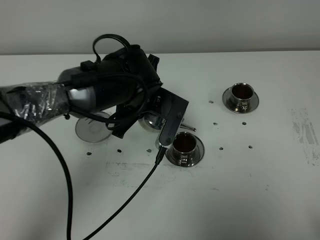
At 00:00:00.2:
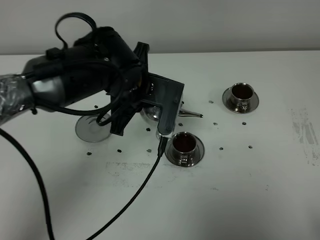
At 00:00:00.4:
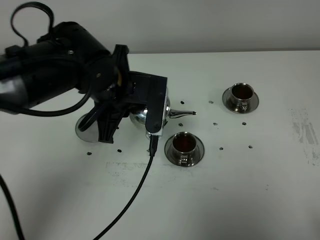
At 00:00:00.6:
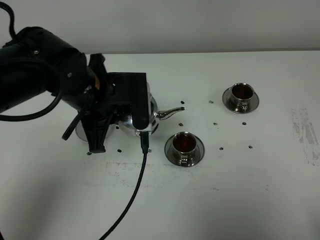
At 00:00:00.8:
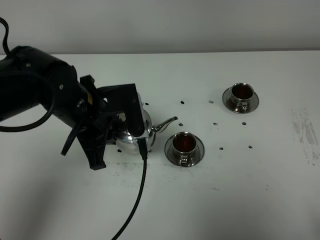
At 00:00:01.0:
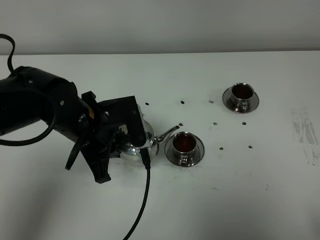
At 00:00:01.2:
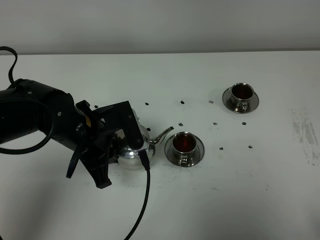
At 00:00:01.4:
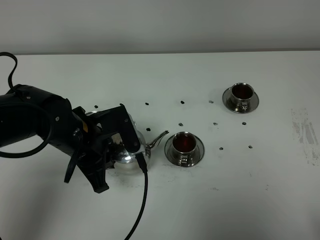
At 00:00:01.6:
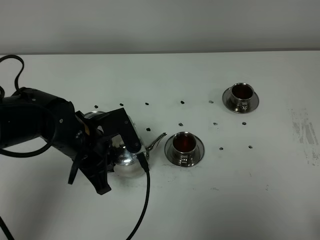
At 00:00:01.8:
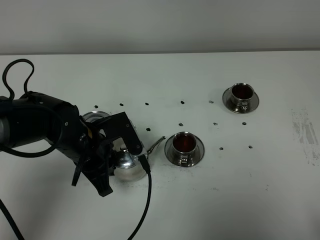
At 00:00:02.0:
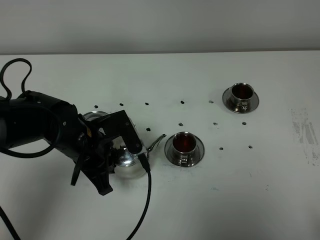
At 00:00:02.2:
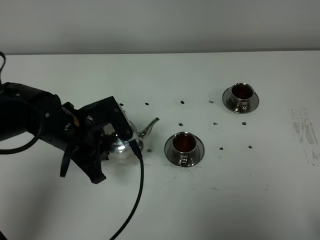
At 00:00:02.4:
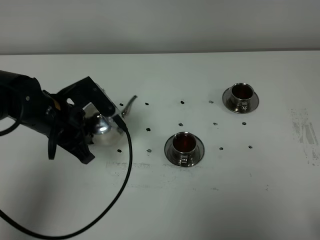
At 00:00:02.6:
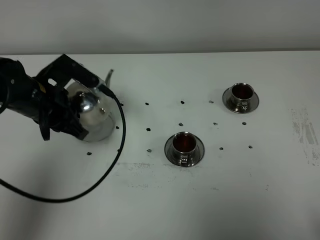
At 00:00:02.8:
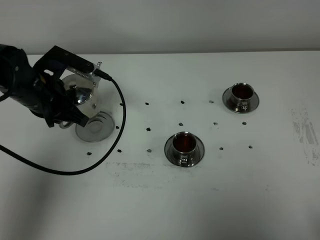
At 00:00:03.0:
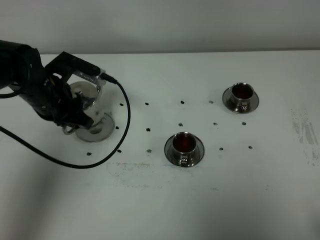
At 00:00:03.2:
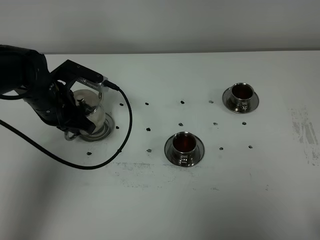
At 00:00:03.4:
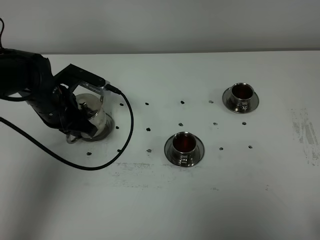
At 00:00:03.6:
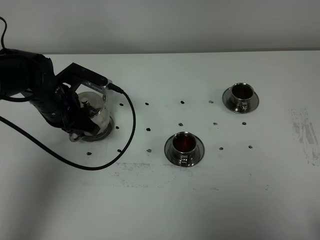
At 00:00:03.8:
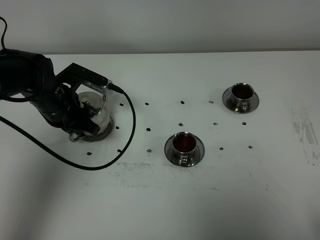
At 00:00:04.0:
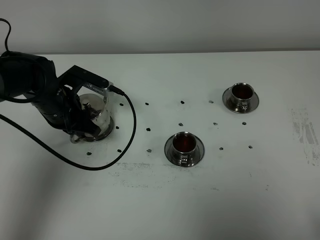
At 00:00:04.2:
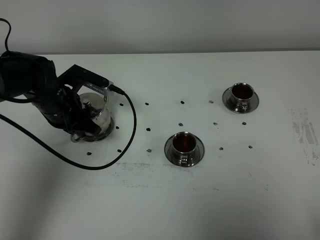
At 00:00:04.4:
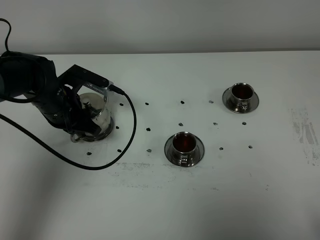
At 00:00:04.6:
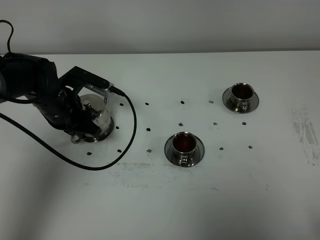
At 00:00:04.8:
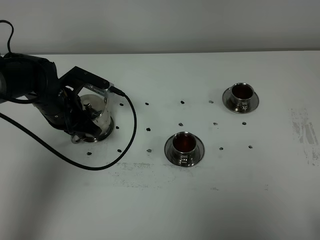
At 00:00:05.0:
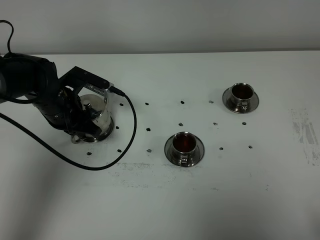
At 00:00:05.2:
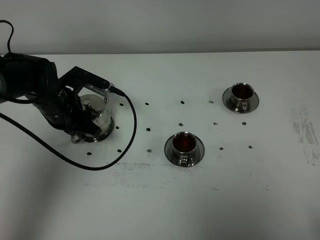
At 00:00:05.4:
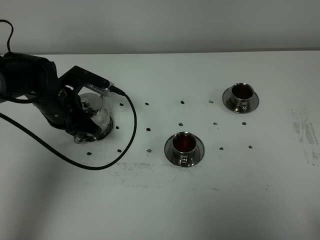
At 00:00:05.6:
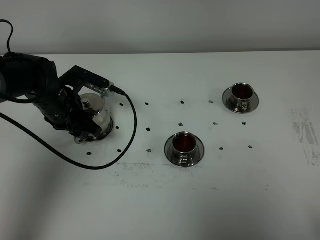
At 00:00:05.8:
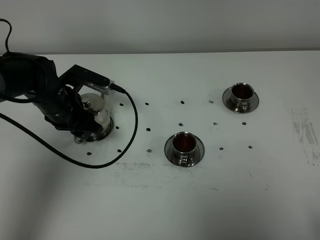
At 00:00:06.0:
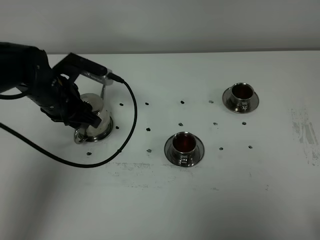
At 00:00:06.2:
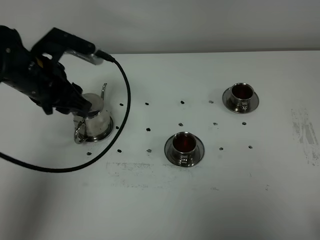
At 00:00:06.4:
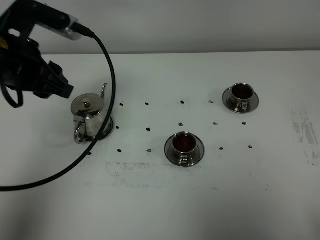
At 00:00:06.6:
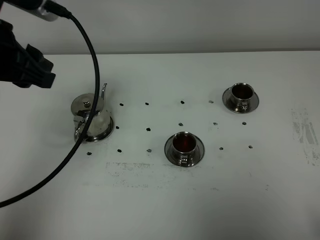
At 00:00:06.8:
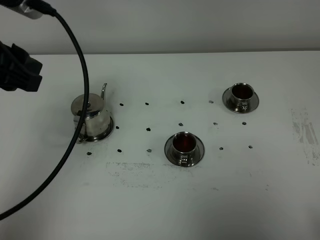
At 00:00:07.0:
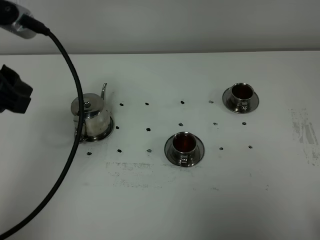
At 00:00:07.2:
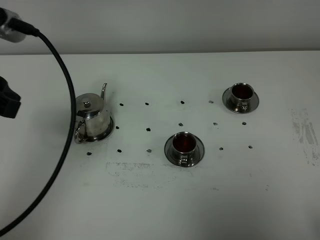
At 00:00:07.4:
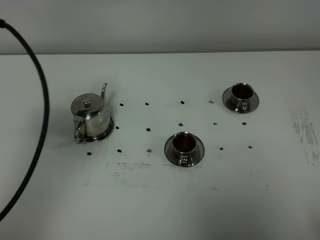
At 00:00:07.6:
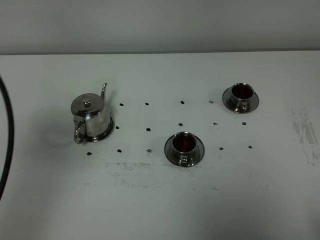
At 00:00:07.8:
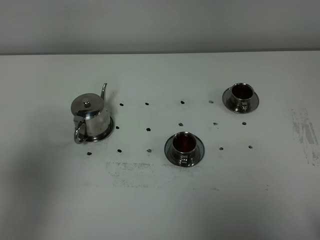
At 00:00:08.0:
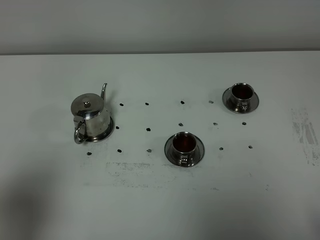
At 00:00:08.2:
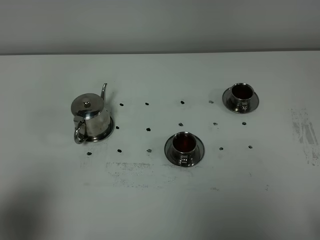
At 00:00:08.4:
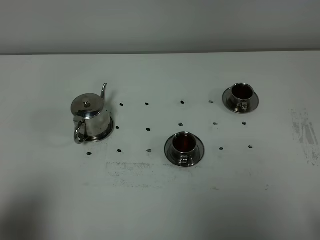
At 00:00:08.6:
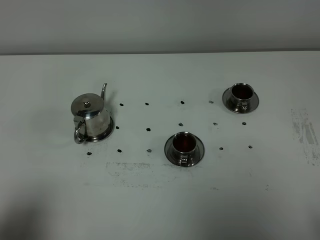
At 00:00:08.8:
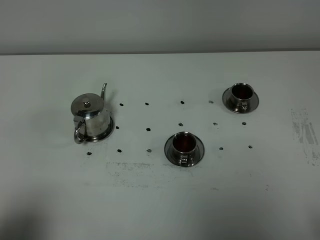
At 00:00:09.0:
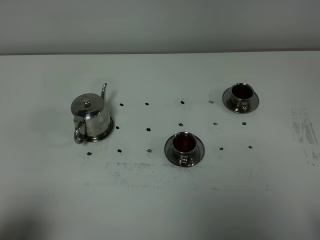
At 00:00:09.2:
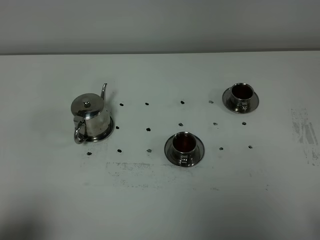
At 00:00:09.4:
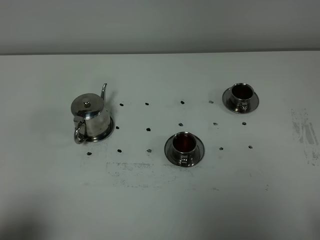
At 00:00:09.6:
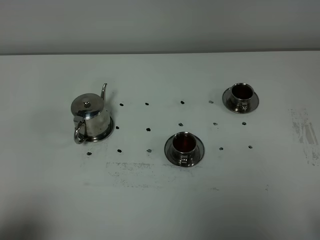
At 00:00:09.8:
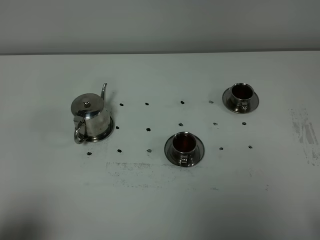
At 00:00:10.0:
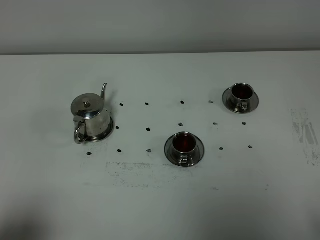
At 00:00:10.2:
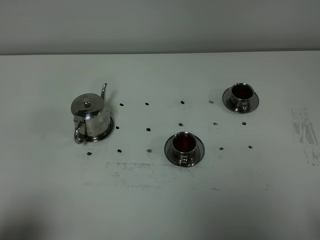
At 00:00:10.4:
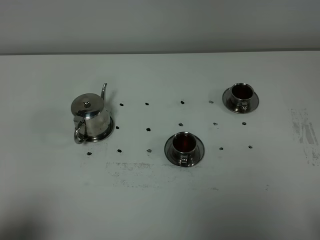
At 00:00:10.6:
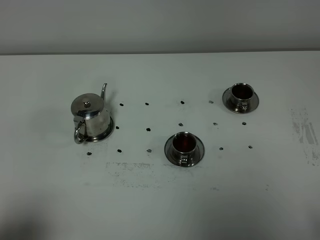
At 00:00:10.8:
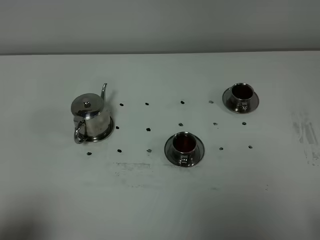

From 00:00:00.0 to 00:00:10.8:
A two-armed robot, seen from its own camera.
Task of the whole recording: grasp the stainless steel teapot and pour the tea into the two stainless steel teacups one by one, put the stainless steel teapot back in its original place.
From 00:00:00.0 to 00:00:01.6: The left gripper heads to the left and backward, covering roughly 10 cm.
From 00:00:01.6 to 00:00:03.0: The left gripper shifts about 10 cm forward and to the left.
From 00:00:03.0 to 00:00:04.6: The grippers stay close to where they were, moving slightly.
From 00:00:04.6 to 00:00:06.2: The left gripper moves upward, about 10 cm, and opens its fingers.
From 00:00:06.2 to 00:00:07.8: The left gripper heads backward, upward and to the left, covering approximately 25 cm.
From 00:00:07.8 to 00:00:09.2: The left gripper shifts roughly 15 cm downward and backward.
From 00:00:09.2 to 00:00:10.8: Both grippers stay put.

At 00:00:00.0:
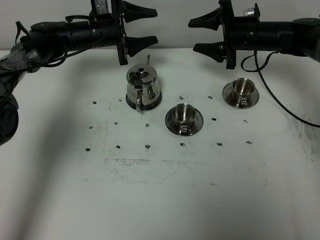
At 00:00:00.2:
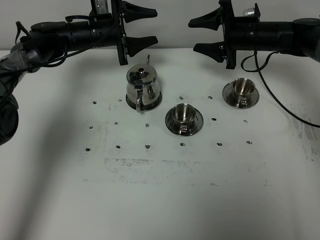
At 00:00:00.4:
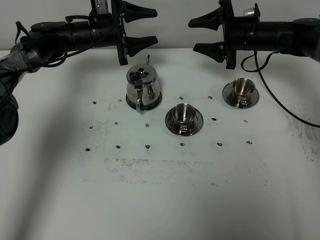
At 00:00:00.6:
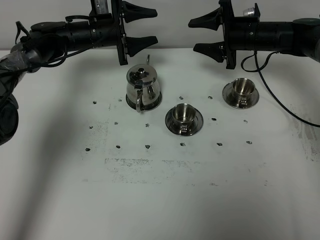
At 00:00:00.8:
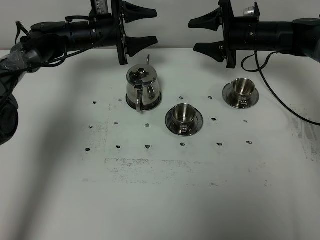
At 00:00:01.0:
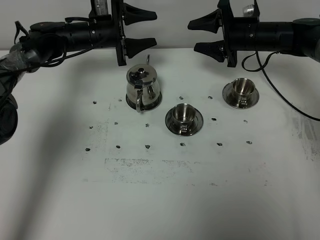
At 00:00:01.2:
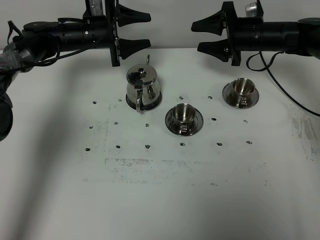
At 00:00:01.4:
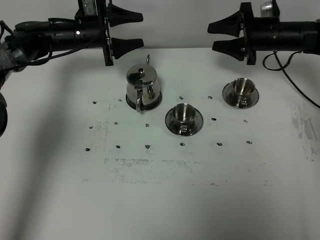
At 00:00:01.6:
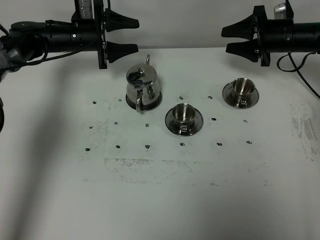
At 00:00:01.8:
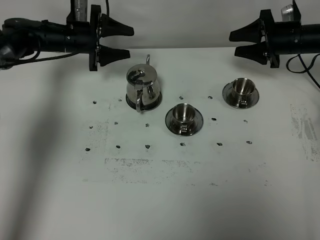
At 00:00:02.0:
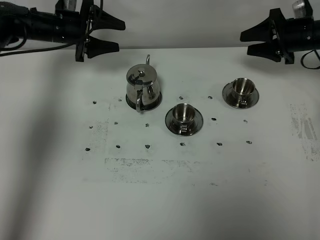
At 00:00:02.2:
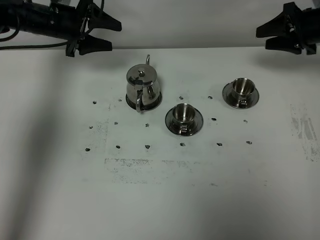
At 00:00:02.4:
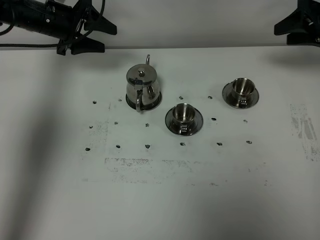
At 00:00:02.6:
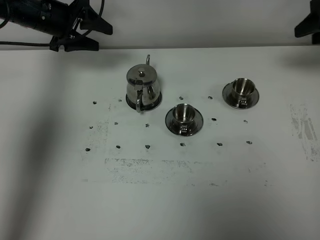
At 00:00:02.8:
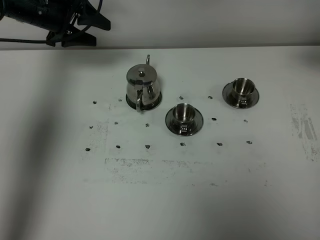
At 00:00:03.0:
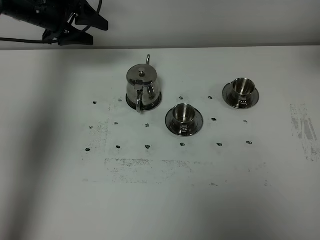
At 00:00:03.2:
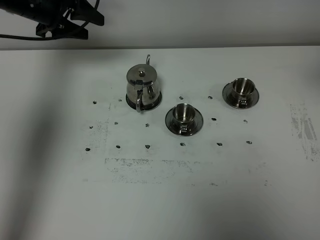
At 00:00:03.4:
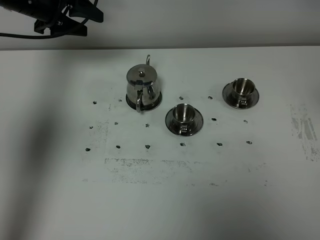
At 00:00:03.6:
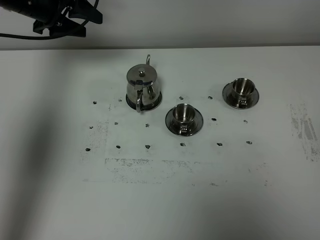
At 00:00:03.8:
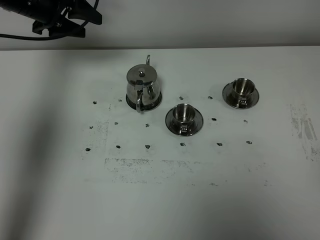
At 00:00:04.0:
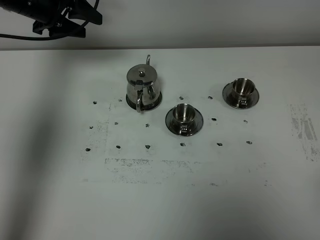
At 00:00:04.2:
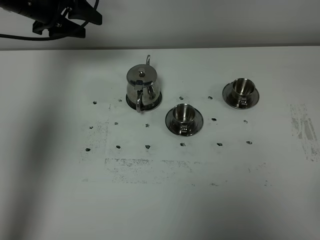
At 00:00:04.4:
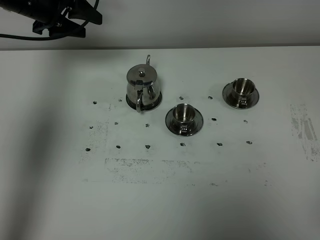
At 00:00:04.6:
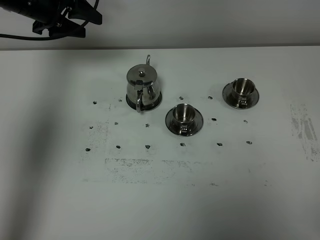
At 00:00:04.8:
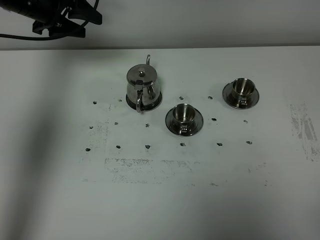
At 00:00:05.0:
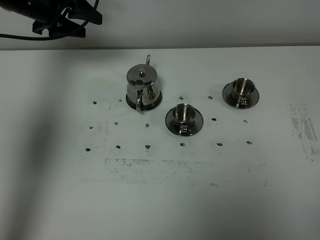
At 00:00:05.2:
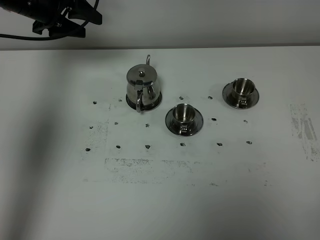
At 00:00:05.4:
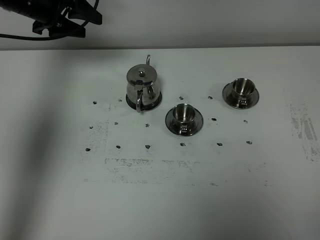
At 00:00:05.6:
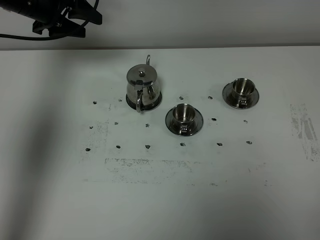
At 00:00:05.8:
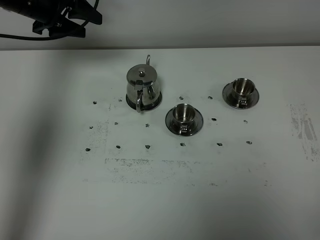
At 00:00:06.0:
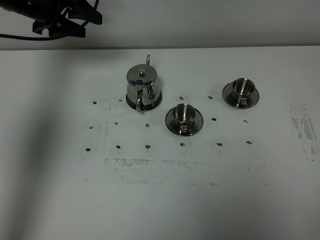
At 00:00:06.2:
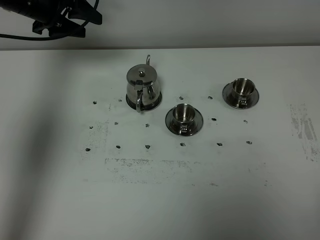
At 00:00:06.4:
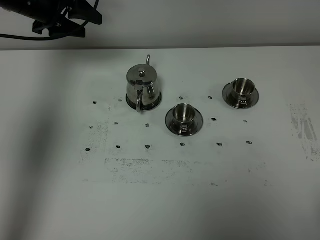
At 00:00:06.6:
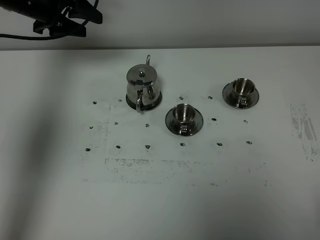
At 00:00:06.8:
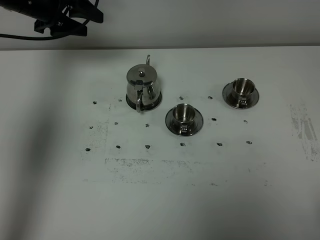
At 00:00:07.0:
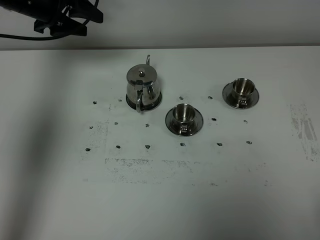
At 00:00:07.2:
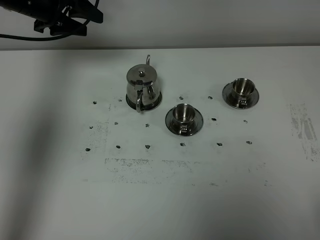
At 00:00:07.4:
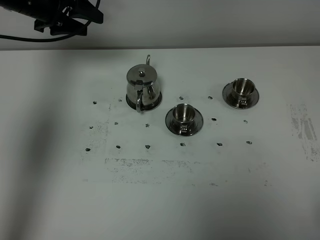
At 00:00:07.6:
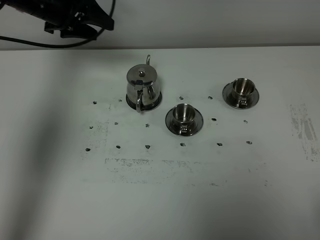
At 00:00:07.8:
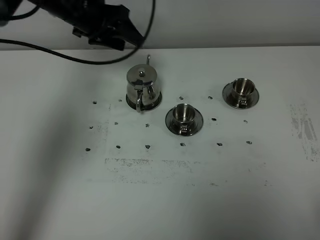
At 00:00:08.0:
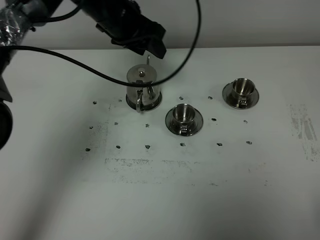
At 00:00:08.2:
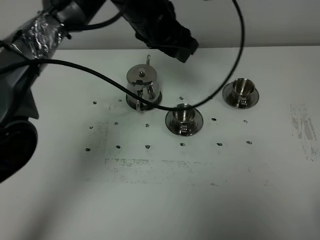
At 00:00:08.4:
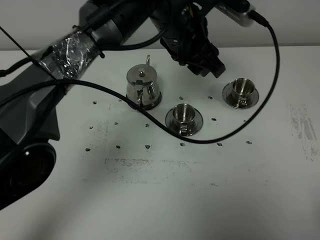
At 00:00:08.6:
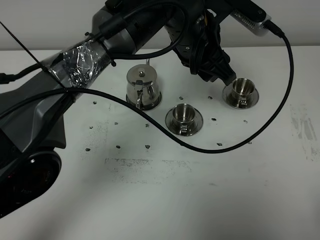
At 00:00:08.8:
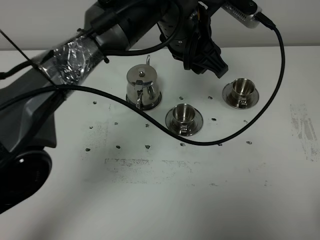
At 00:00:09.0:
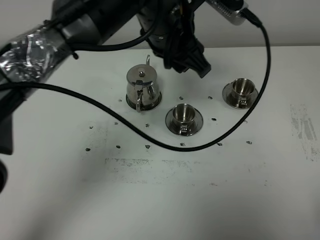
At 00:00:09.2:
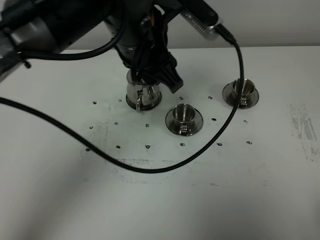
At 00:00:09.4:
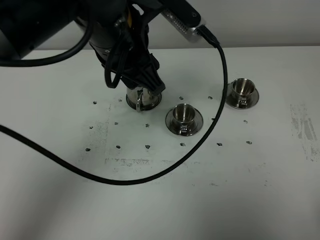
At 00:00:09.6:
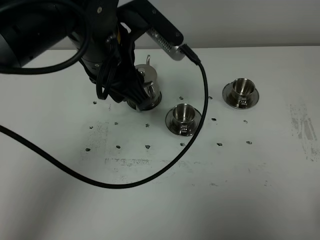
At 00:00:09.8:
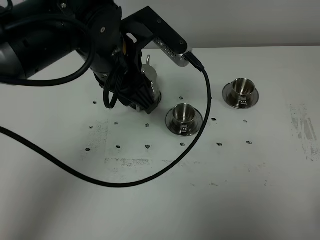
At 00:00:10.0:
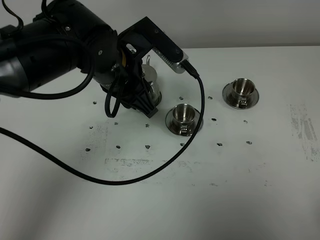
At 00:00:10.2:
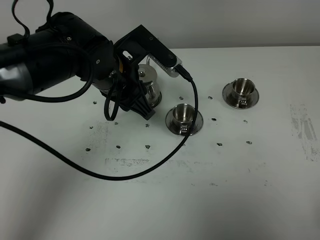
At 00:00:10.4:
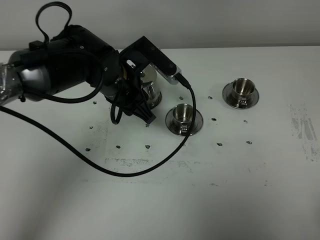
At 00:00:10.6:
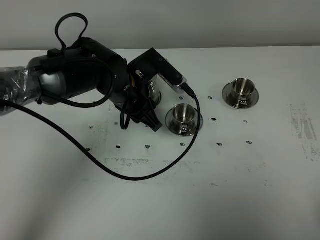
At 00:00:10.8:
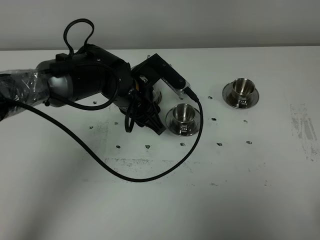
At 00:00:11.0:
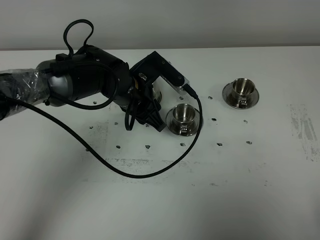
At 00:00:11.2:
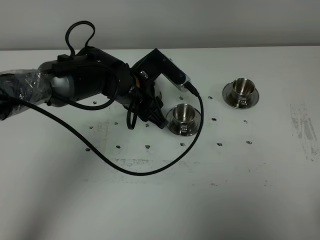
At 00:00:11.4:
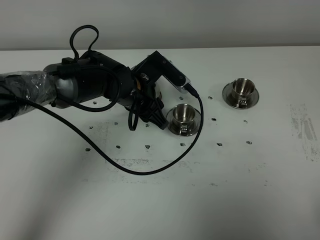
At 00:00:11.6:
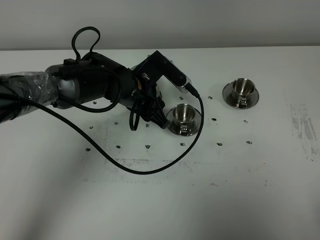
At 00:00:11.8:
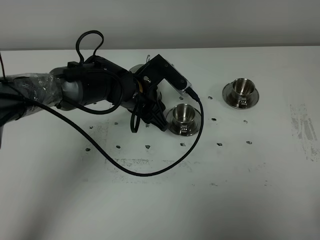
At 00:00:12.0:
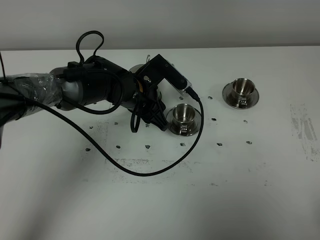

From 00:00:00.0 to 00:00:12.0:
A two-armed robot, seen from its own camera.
Task of the whole recording: grasp the stainless steel teapot and pour the tea into the two stainless steel teacups one by one, put the stainless steel teapot back in its original place.
From 00:00:00.0 to 00:00:01.6: The right gripper travels to the right by approximately 5 cm.
From 00:00:01.6 to 00:00:03.0: The left gripper is displaced upward by about 10 cm. The right gripper travels upward and backward by some 30 cm.
From 00:00:06.0 to 00:00:07.6: There are only small adjustments of the grippers.
From 00:00:07.6 to 00:00:09.0: The left gripper travels to the right and backward by some 25 cm.
From 00:00:09.0 to 00:00:10.4: The left gripper travels downward and to the left by roughly 15 cm.
From 00:00:10.4 to 00:00:12.0: The left gripper moves downward, some 5 cm.
